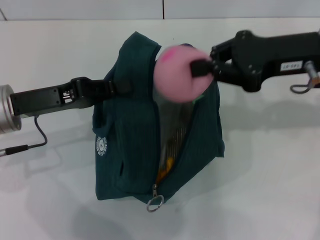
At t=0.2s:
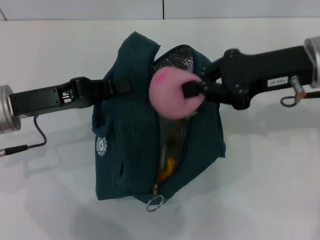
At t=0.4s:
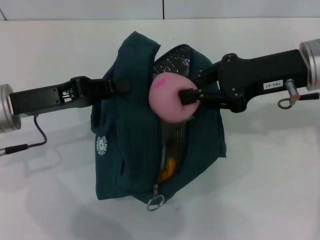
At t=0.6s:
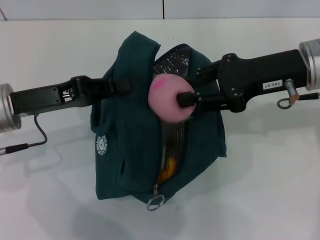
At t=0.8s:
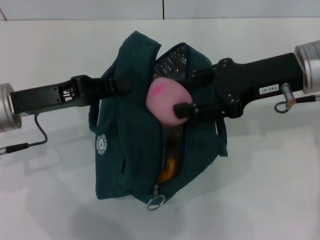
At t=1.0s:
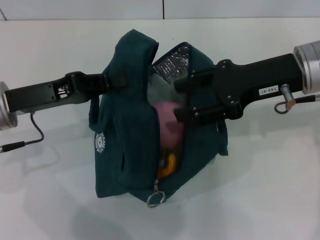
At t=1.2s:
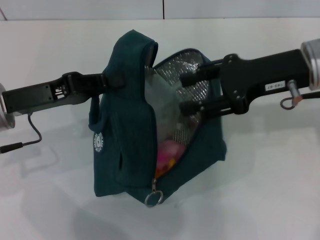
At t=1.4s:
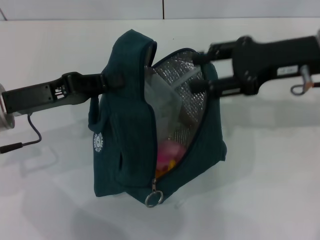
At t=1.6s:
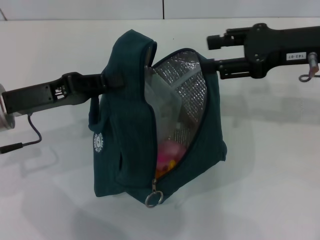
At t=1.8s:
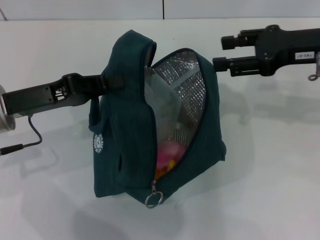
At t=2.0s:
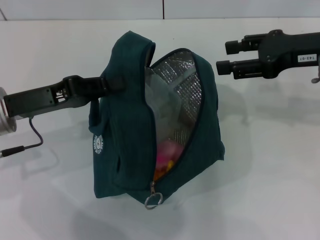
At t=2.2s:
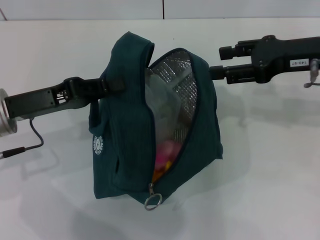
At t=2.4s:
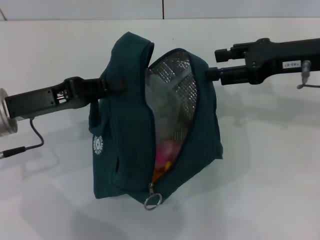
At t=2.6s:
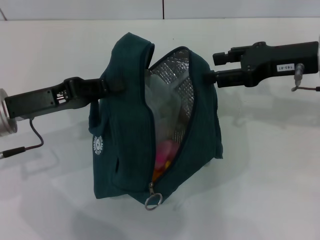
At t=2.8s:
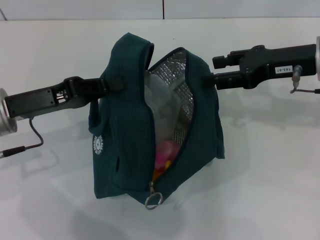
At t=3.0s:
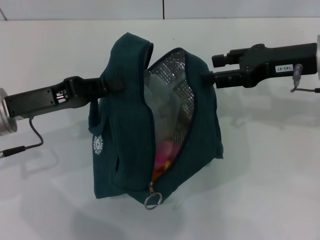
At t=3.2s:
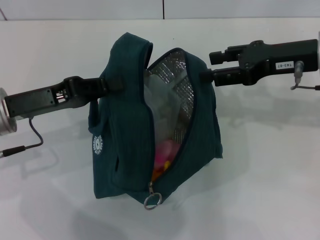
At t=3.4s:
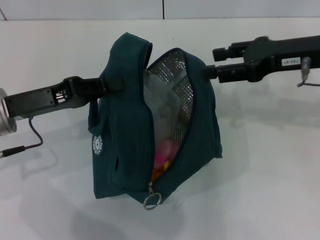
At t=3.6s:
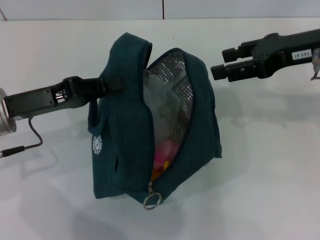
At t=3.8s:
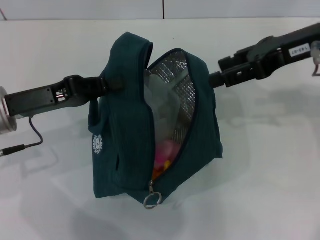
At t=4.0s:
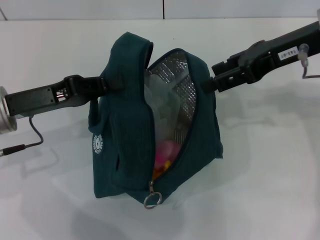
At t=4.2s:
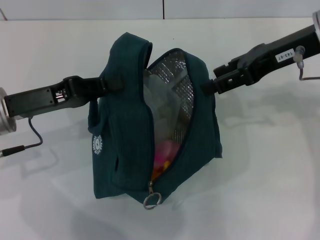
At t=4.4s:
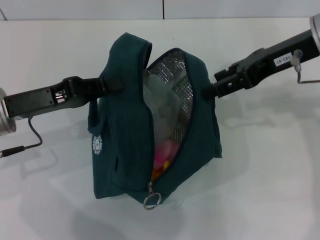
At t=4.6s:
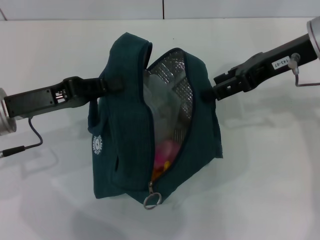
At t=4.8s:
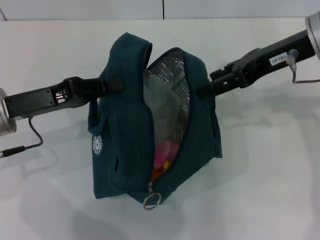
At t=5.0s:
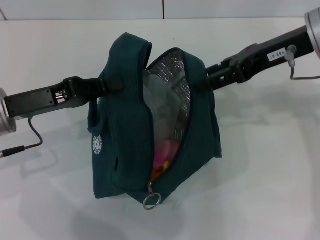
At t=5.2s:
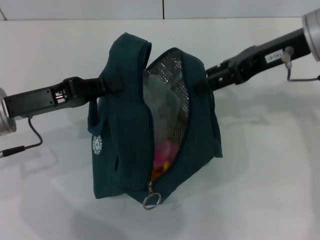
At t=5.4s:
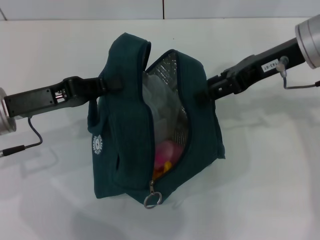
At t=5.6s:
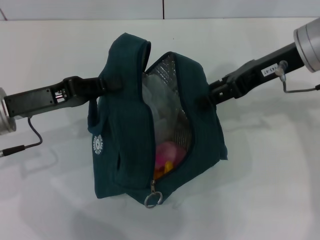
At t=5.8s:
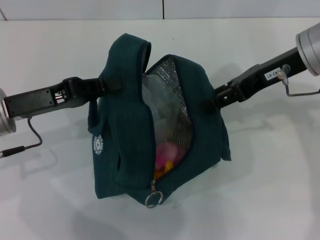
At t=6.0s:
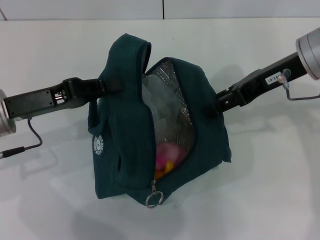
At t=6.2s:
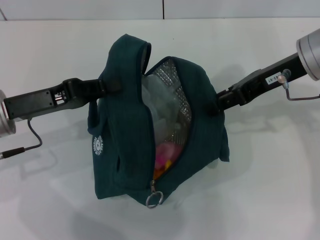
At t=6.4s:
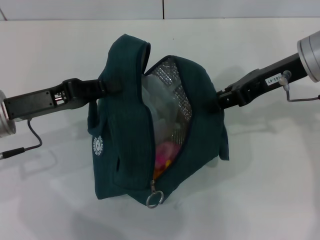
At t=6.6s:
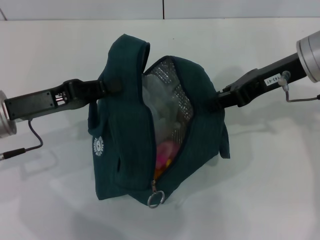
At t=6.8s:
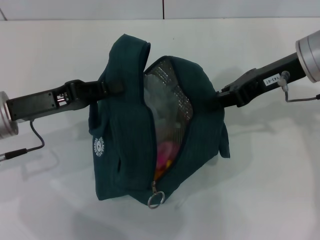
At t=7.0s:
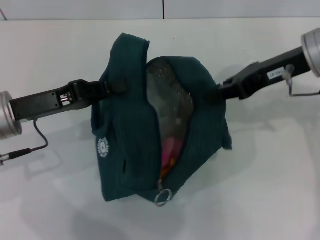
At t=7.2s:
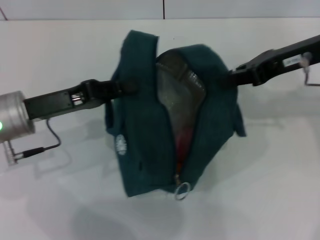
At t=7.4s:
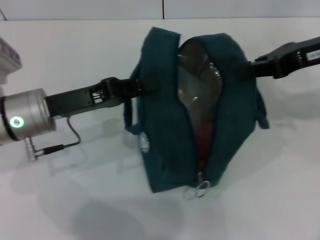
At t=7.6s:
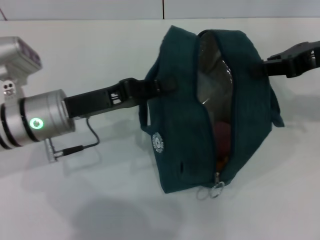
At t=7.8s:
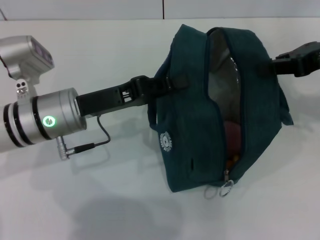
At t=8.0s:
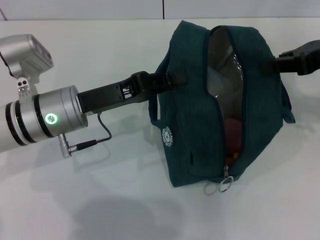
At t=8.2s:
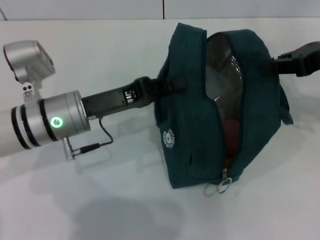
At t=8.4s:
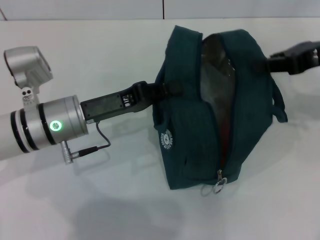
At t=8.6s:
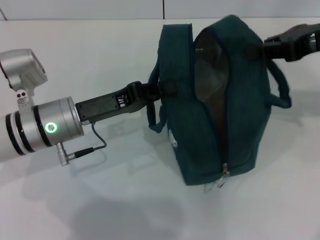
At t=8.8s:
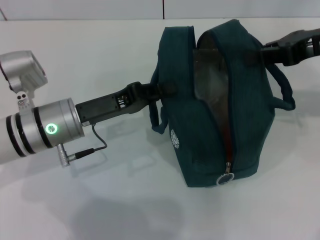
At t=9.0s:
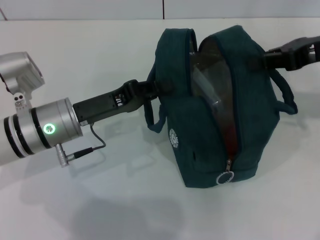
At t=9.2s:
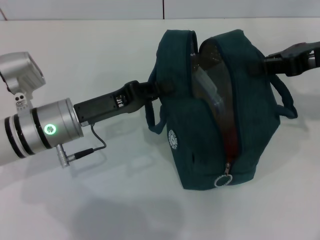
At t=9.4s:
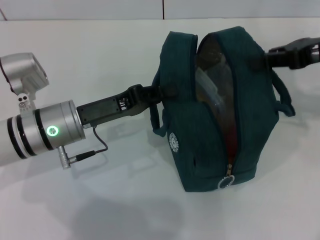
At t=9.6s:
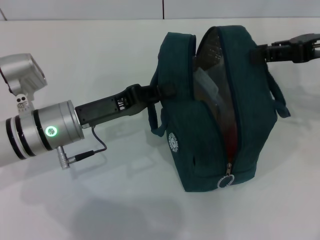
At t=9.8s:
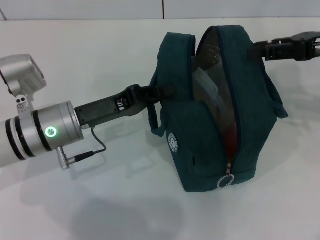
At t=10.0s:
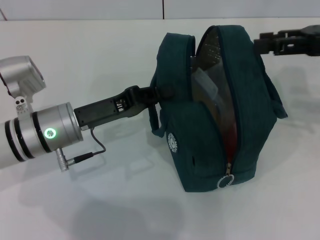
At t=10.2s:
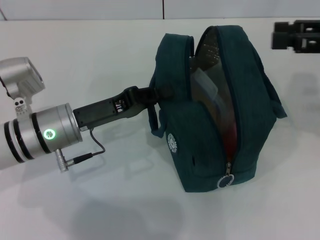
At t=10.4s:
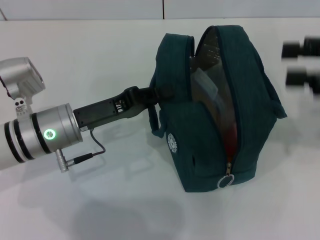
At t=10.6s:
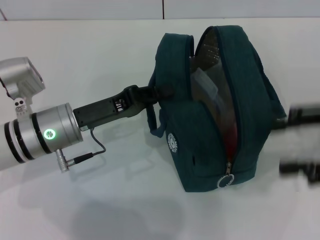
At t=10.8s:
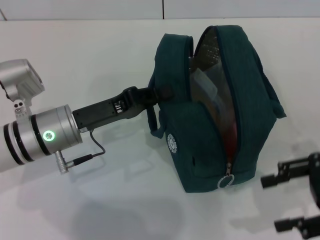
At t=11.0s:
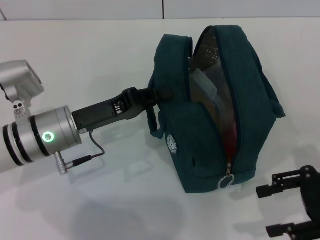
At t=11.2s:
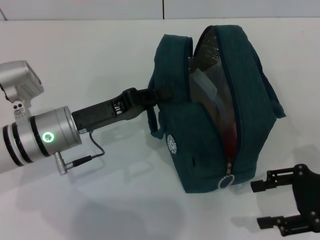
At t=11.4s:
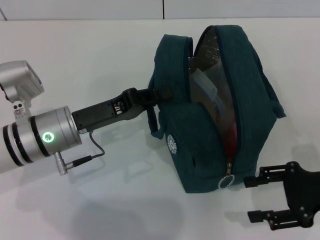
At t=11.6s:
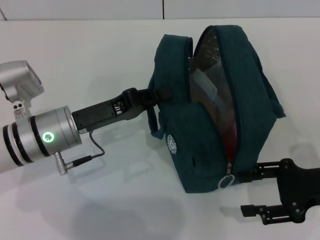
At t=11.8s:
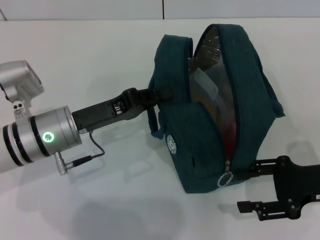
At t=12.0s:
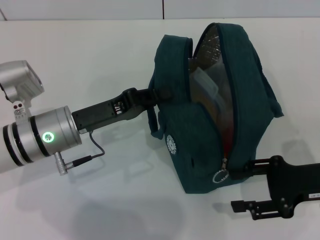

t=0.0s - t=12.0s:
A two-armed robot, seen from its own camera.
Step, t=1.2s - t=10.0s: Hold the lunch bag with your right hand.
t=0.0s - t=1.6s: The right gripper opens.
t=1.6s - t=3.0s: The grippers move only a little.
t=3.0s - t=4.4s: The right gripper heads upward, covering about 5 cm.
t=4.4s - t=6.0s: There are only small adjustments of the grippers.
t=6.0s - t=7.6s: Both grippers move to the right, approximately 5 cm. The right gripper closes.
t=7.6s - t=9.0s: The grippers stay close to where they were, moving slightly.
t=9.0s - t=10.4s: The right gripper is displaced backward by about 5 cm, and opens its fingers.
t=10.4s - t=12.0s: The right gripper goes roughly 15 cm downward.

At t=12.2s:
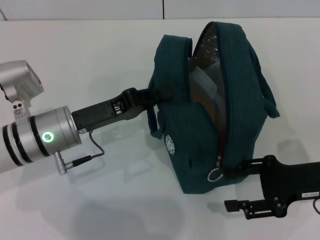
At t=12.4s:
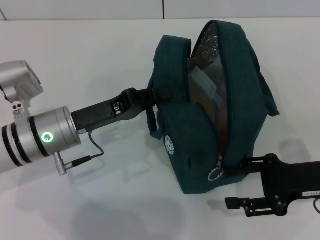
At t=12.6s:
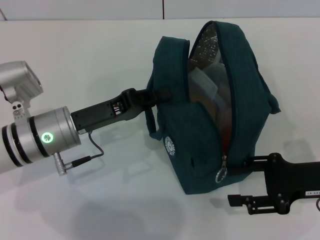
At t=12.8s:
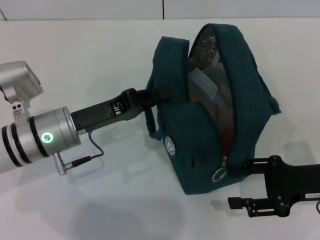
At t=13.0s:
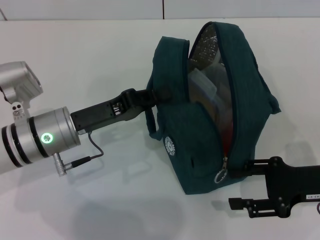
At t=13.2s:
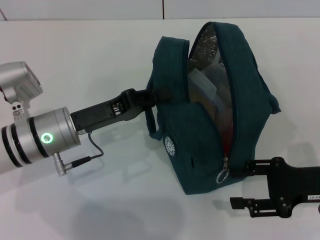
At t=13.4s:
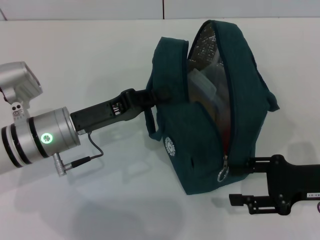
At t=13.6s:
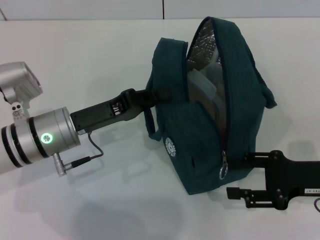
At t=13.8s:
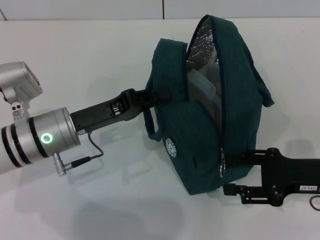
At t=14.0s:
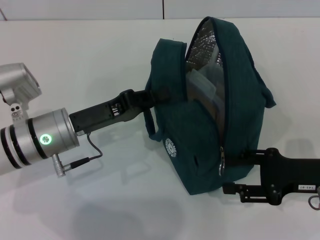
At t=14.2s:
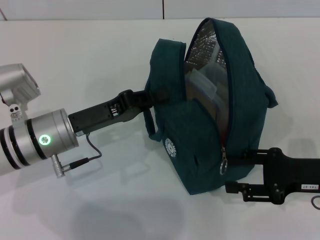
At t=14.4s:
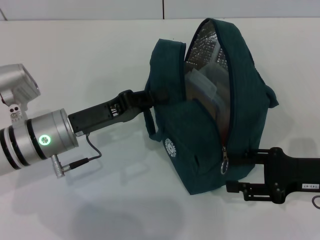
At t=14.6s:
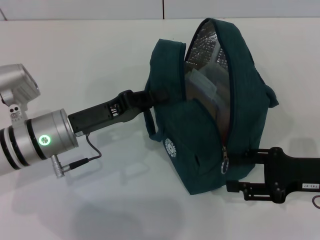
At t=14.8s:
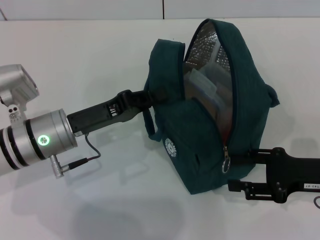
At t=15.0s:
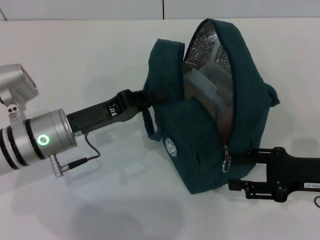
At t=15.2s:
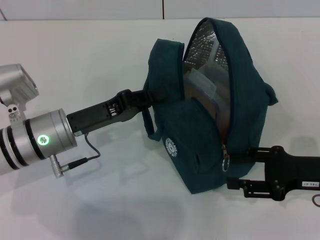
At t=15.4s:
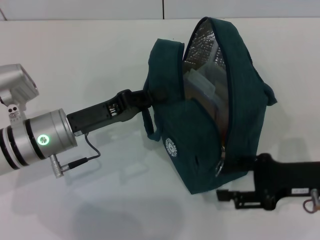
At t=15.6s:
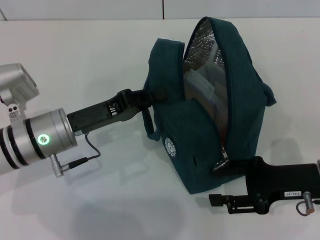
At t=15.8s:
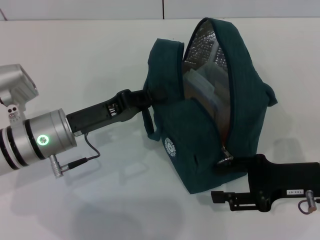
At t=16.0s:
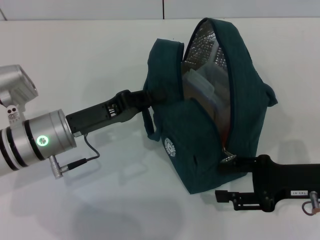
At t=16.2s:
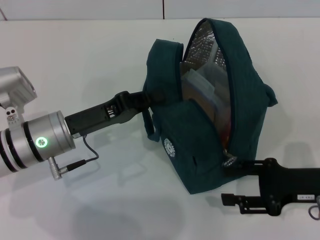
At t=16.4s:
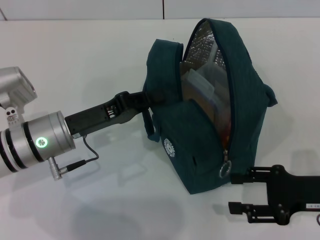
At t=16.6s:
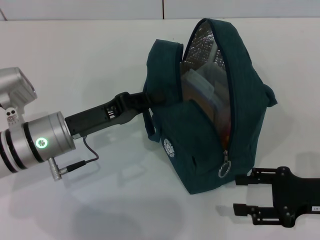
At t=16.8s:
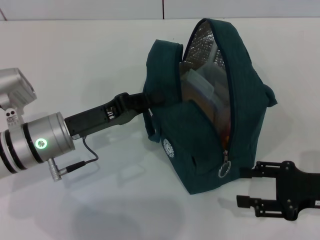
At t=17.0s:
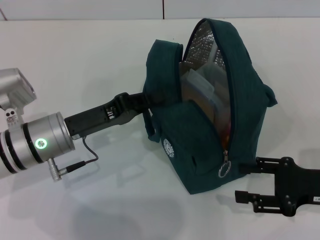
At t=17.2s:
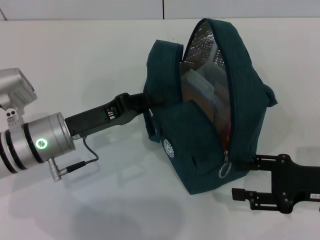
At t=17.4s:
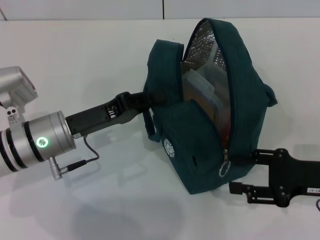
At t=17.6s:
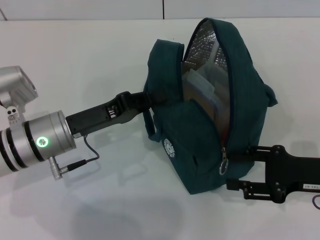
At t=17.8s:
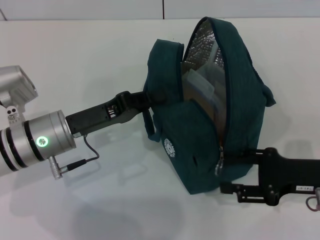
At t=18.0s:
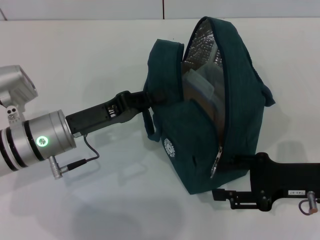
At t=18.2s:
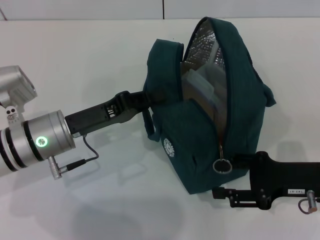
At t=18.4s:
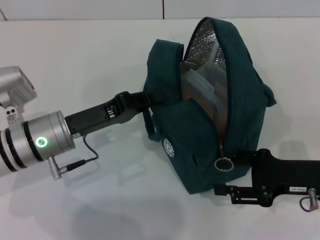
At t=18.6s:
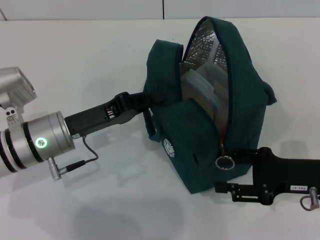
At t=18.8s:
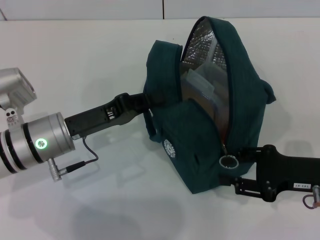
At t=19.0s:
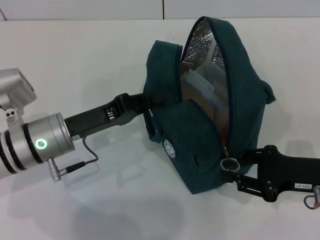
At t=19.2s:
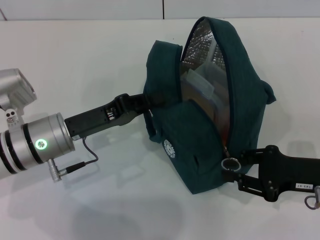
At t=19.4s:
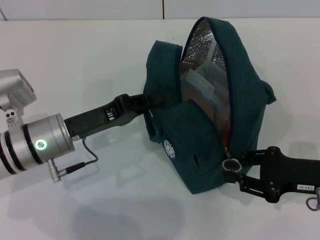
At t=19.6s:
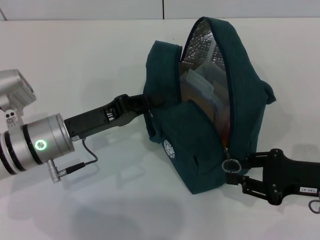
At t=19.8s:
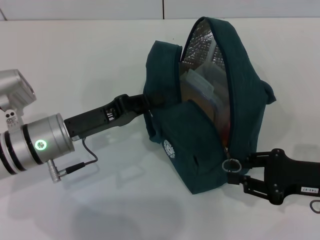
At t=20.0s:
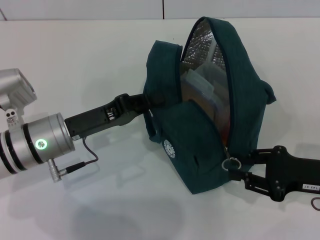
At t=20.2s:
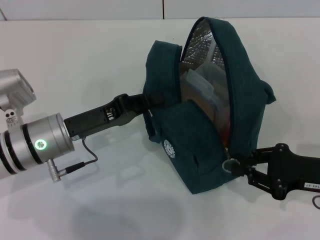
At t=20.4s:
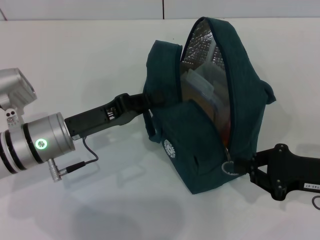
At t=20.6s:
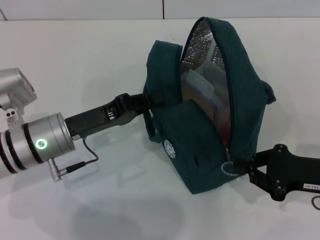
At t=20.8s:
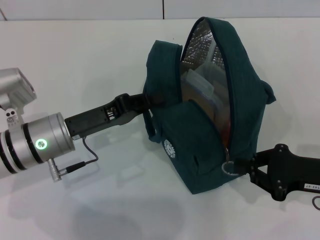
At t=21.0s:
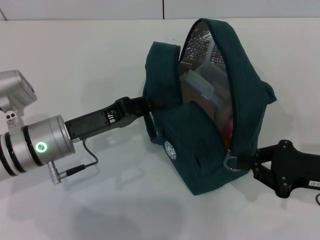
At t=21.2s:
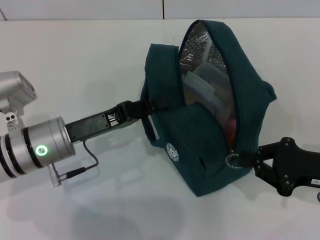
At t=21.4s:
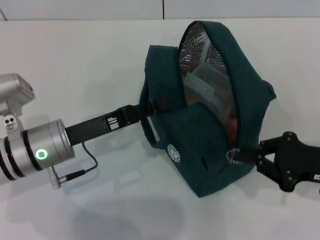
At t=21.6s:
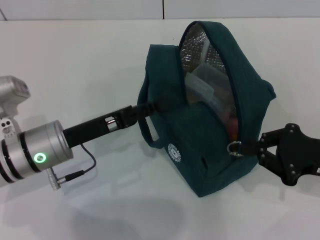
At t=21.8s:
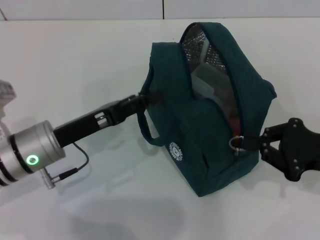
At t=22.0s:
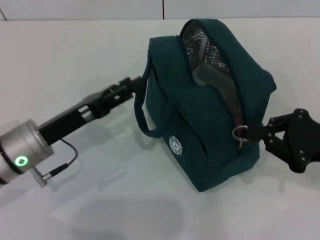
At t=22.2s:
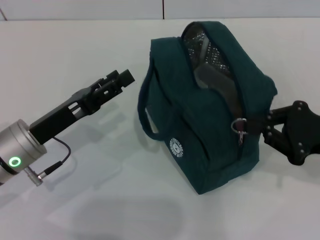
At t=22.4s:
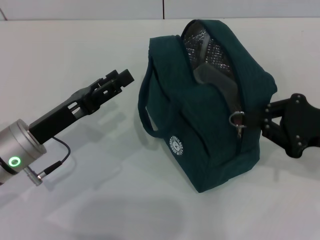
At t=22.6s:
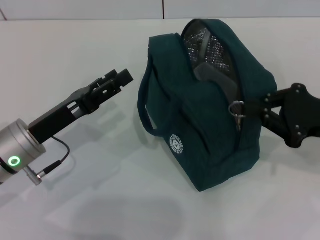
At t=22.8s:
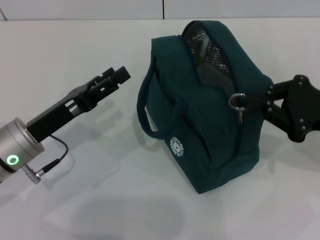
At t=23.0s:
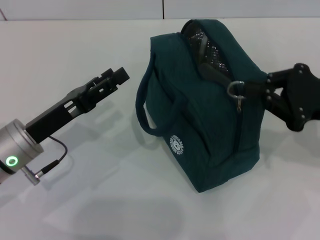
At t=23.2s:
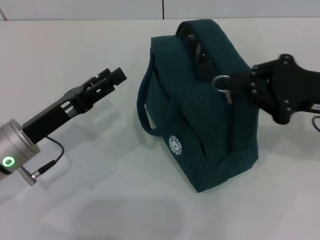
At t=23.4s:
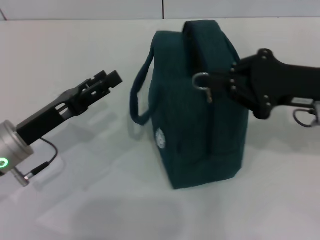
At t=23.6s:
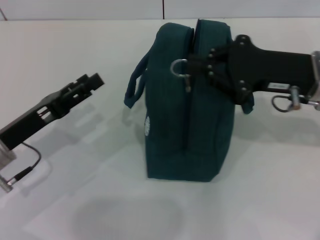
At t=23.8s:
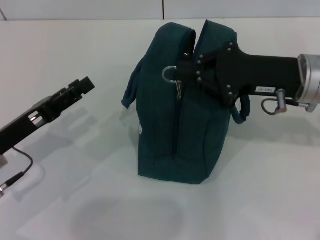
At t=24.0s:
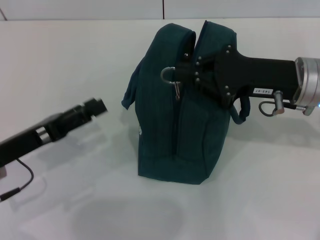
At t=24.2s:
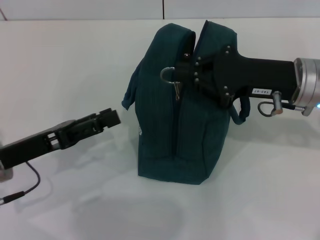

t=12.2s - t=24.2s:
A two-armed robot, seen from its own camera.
Step, t=12.2s - t=21.6s: Hold the lunch bag with your left hand.
t=12.2s - t=13.8s: The grippers stay close to where they were, moving slightly.
t=13.8s - t=15.2s: Neither gripper changes place.
t=15.2s - t=18.2s: The grippers make only small movements.
t=18.2s - t=19.8s: The right gripper closes its fingers.
t=19.8s - t=21.2s: The right gripper closes.
t=21.2s - t=22.6s: The right gripper shifts roughly 5 cm upward. Meanwhile the left gripper opens its fingers.
t=22.6s - t=24.2s: The right gripper shifts roughly 10 cm to the left and forward.
